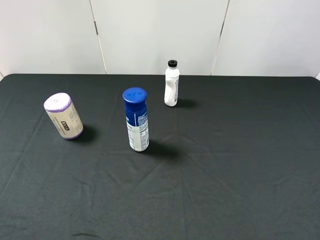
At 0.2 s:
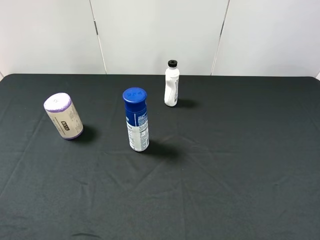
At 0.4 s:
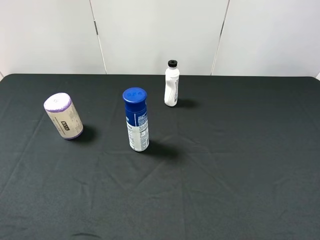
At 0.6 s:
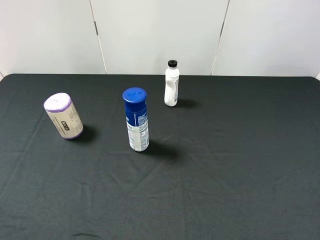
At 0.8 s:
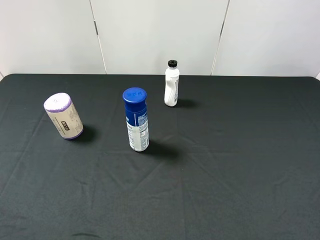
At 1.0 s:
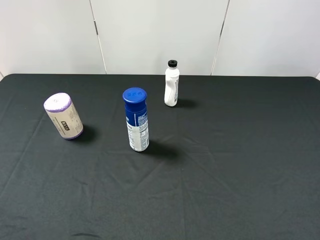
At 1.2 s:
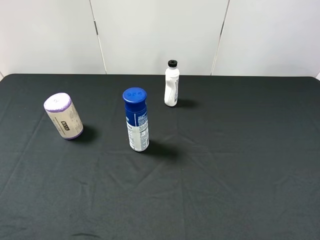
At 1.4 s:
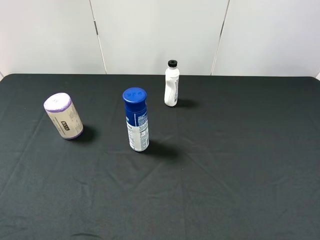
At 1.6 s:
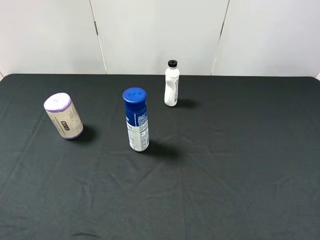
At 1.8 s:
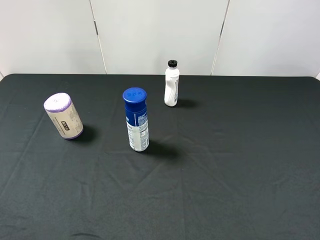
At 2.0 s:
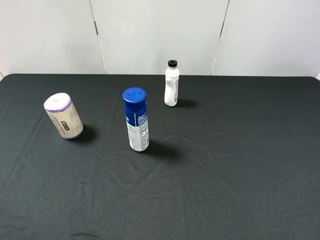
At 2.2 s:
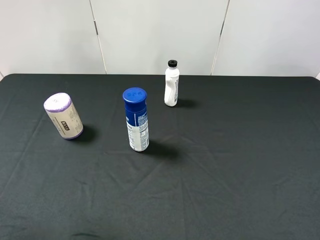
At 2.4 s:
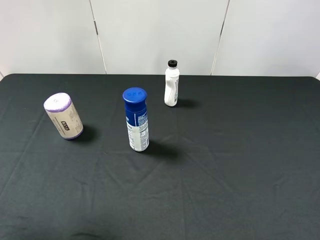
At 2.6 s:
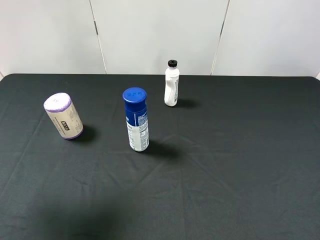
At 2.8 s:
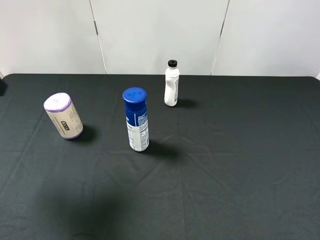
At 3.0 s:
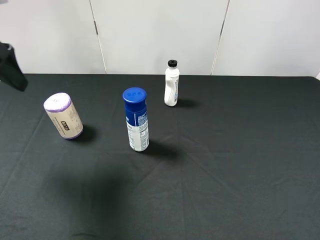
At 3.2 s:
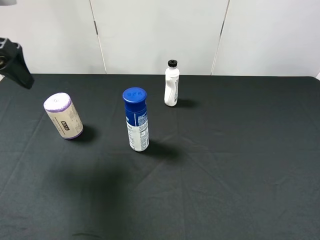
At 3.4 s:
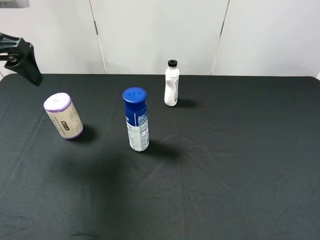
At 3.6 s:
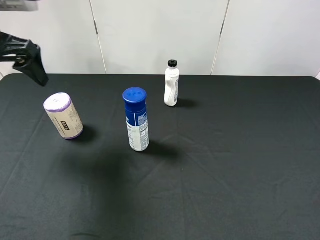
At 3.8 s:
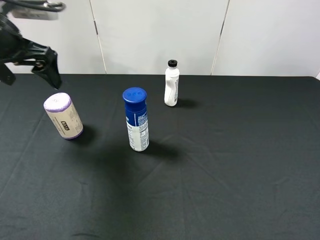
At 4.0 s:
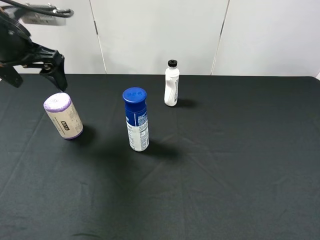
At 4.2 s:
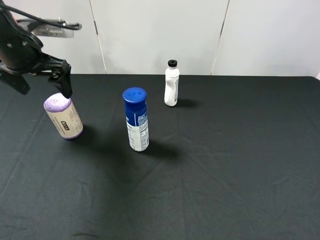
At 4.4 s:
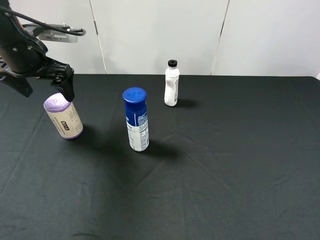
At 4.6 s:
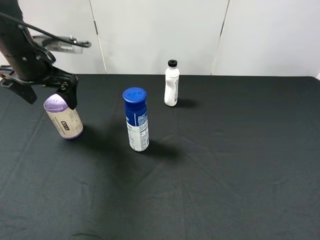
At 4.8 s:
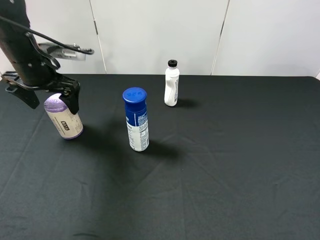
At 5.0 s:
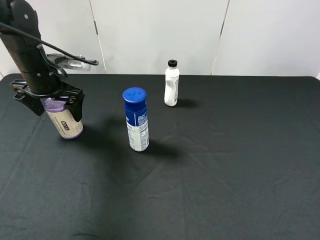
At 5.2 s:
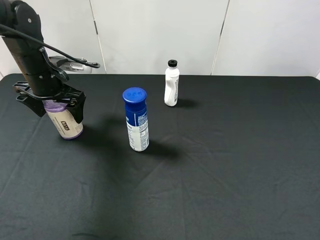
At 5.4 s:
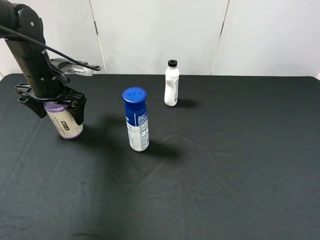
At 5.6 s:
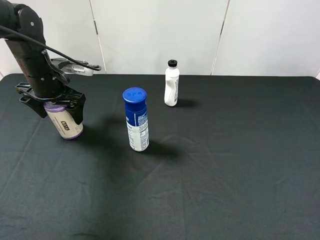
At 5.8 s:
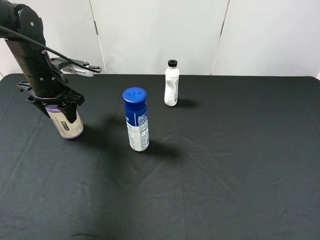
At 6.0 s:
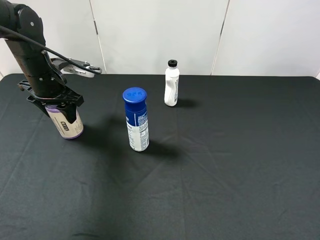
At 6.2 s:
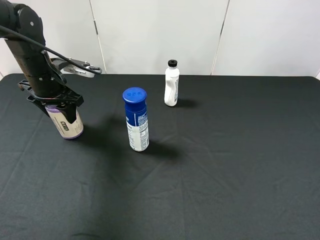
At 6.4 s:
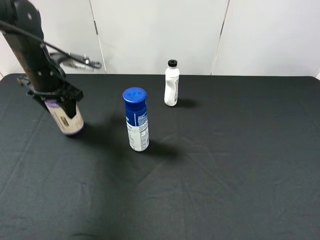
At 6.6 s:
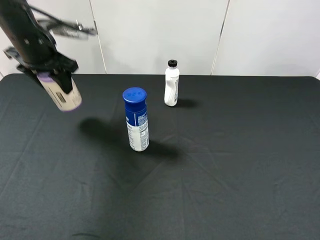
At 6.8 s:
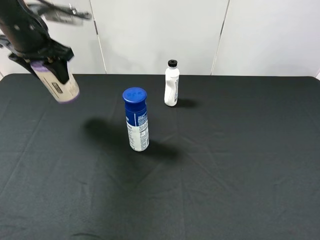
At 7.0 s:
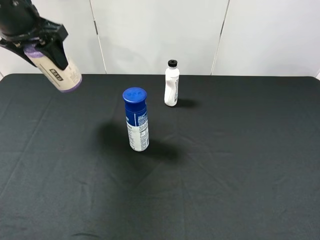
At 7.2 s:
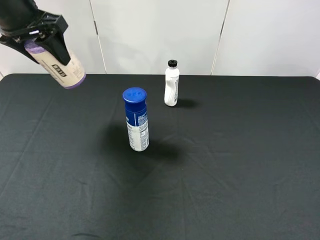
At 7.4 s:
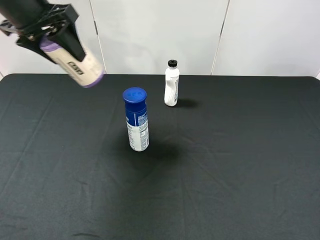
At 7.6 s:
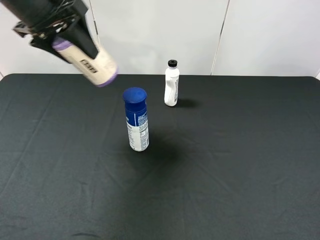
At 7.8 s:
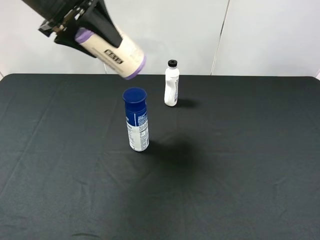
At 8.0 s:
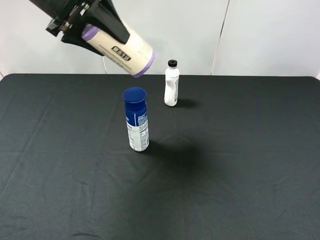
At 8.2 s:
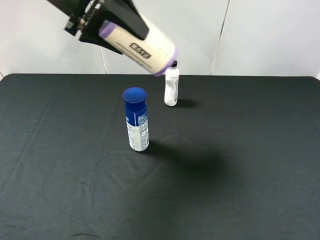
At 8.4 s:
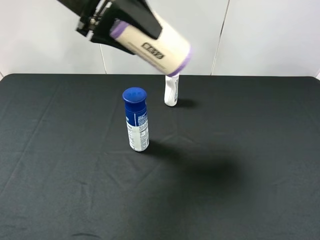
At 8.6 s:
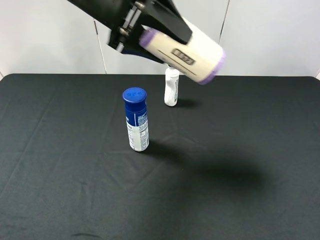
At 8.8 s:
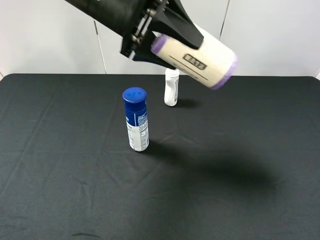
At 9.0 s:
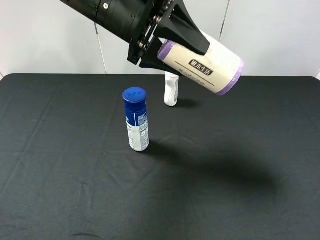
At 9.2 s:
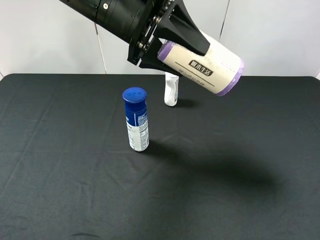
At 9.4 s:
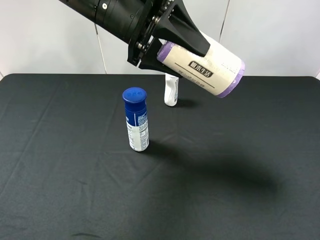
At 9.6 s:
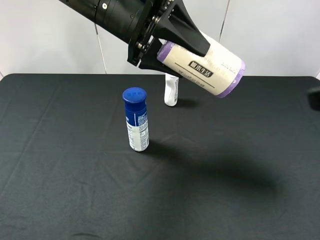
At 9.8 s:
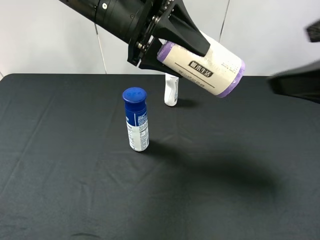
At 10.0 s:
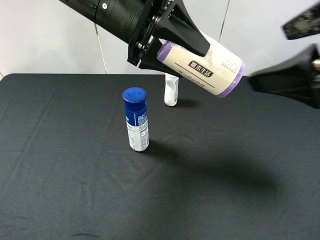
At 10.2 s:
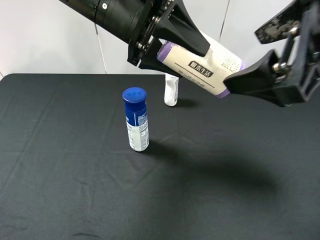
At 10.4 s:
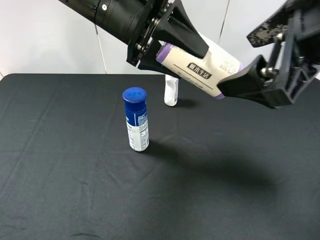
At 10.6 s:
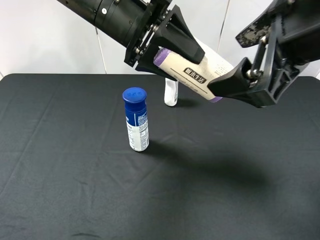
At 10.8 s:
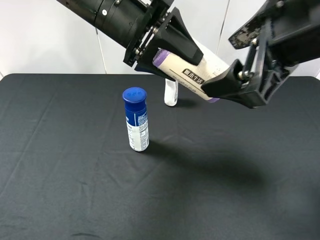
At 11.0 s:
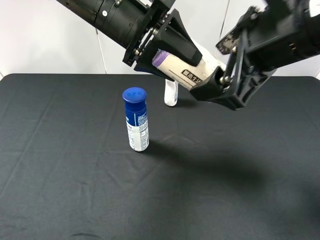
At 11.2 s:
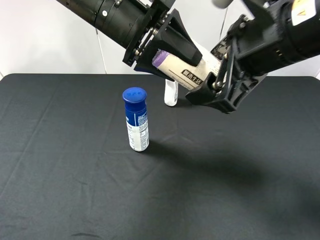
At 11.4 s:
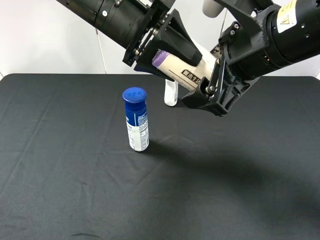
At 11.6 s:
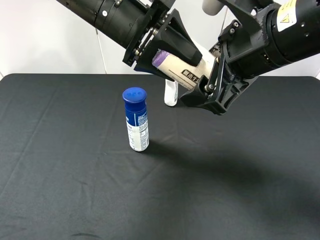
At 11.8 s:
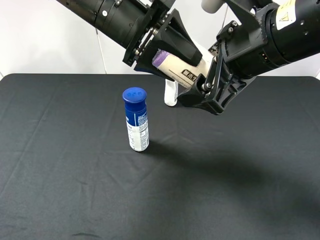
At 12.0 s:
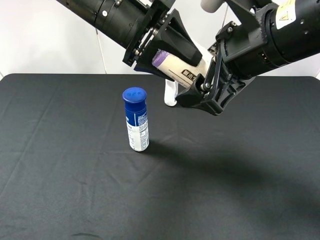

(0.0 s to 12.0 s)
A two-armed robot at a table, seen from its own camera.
Task of the whole recording: use the left gripper to pick up the item and transfer it from the left gripper to the right gripper.
1.6 s - 3.0 s: The left gripper travels forward by roughly 25 cm.
3.0 s - 4.4 s: The left gripper travels forward and downward by some 10 cm.
4.4 s - 6.0 s: The left gripper shifts some 10 cm downward, and closes.
6.0 s - 7.6 s: The left gripper goes approximately 15 cm upward.
7.6 s - 9.0 s: The left gripper moves to the right, some 15 cm. The right gripper ends up about 5 cm from where it was.
9.0 s - 10.4 s: The right gripper heads forward and to the left, covering roughly 15 cm.
10.4 s - 12.0 s: The right gripper moves approximately 5 cm.

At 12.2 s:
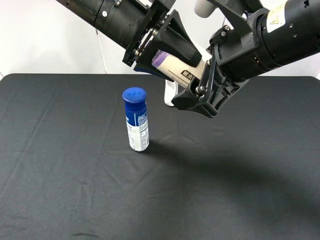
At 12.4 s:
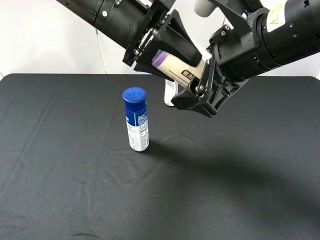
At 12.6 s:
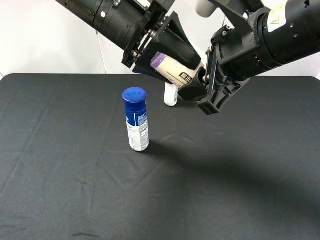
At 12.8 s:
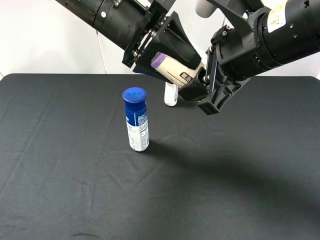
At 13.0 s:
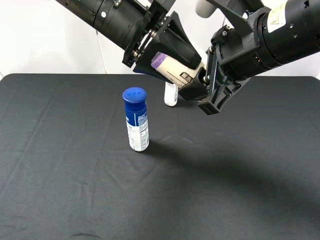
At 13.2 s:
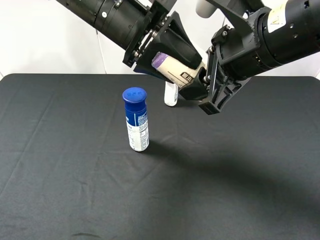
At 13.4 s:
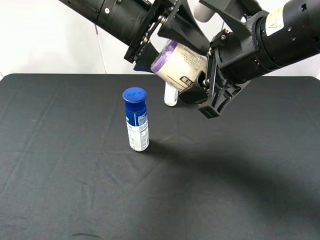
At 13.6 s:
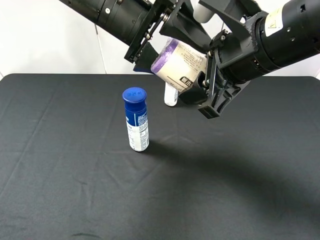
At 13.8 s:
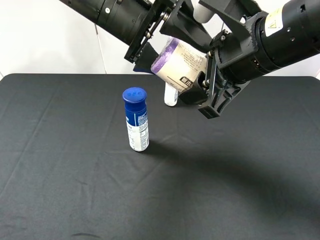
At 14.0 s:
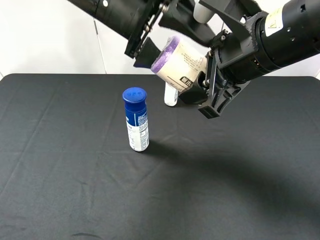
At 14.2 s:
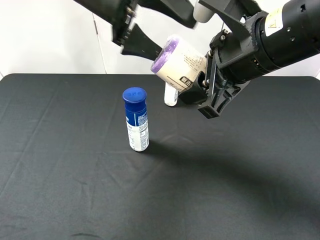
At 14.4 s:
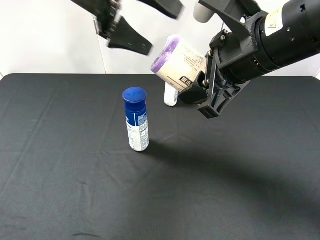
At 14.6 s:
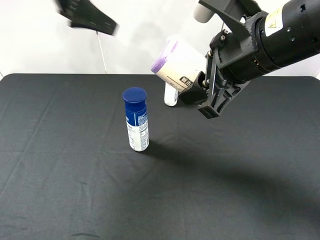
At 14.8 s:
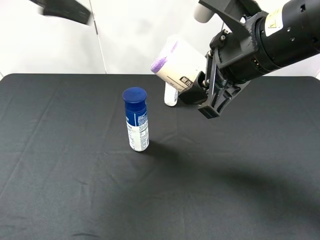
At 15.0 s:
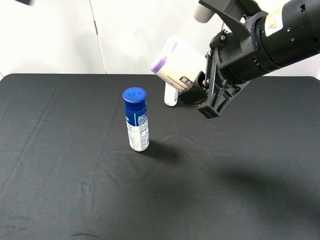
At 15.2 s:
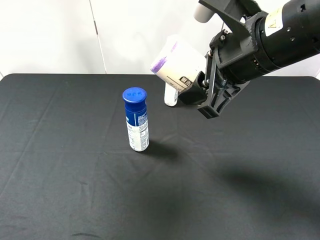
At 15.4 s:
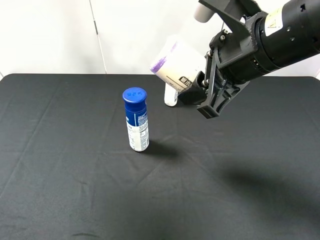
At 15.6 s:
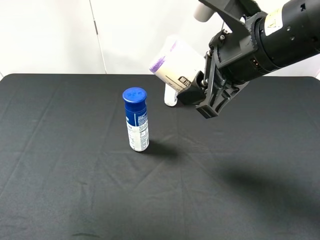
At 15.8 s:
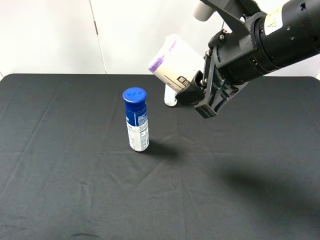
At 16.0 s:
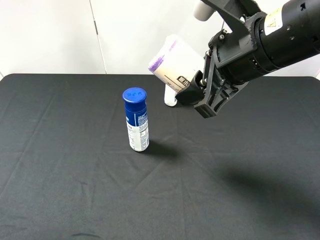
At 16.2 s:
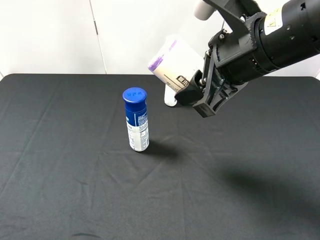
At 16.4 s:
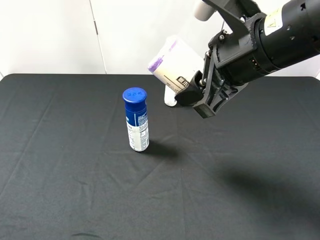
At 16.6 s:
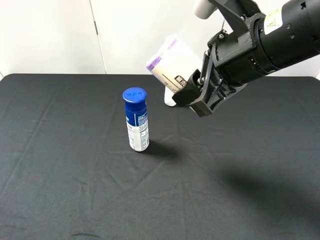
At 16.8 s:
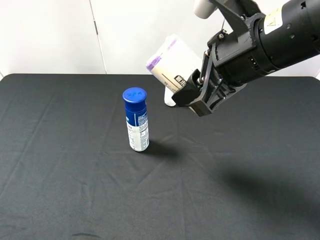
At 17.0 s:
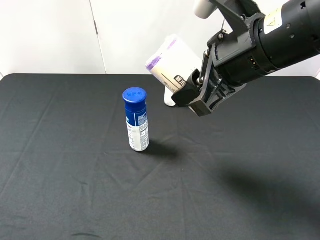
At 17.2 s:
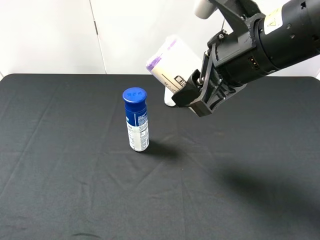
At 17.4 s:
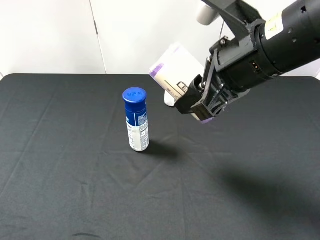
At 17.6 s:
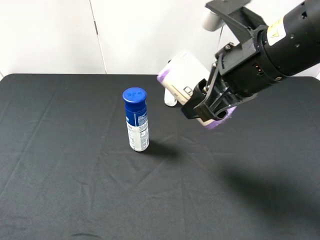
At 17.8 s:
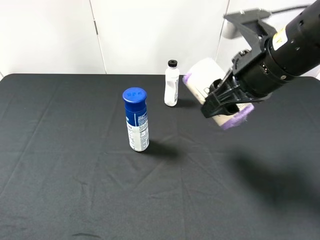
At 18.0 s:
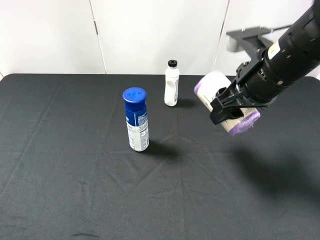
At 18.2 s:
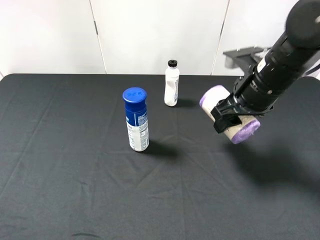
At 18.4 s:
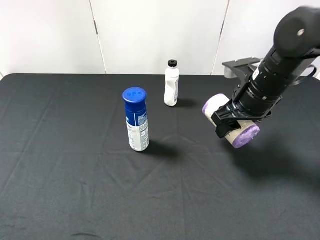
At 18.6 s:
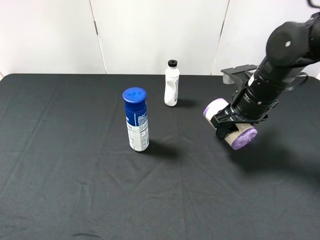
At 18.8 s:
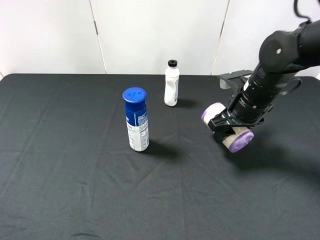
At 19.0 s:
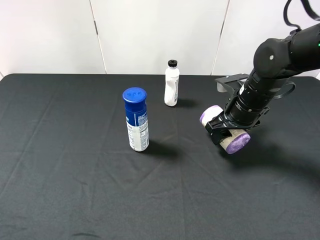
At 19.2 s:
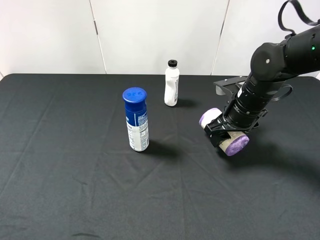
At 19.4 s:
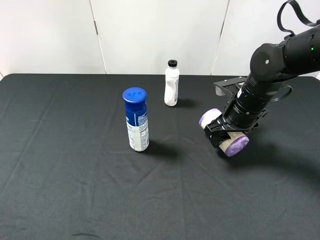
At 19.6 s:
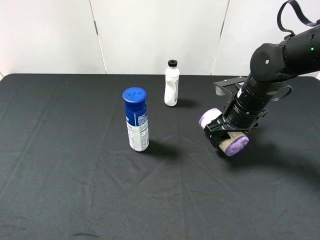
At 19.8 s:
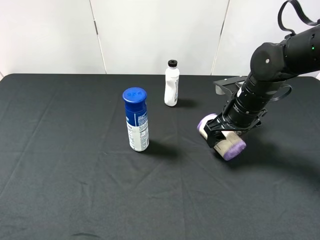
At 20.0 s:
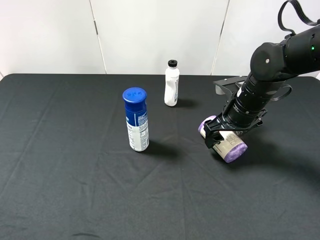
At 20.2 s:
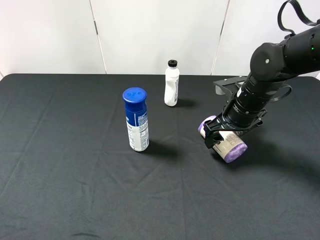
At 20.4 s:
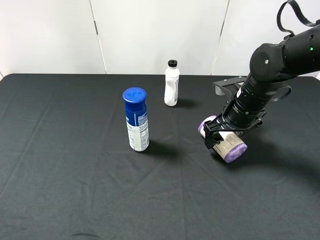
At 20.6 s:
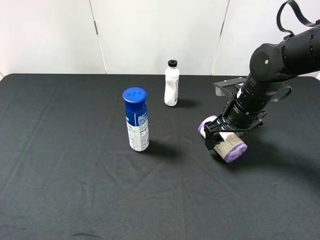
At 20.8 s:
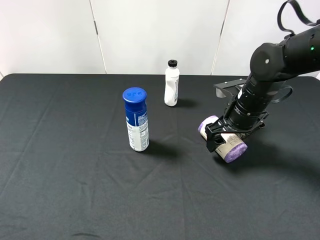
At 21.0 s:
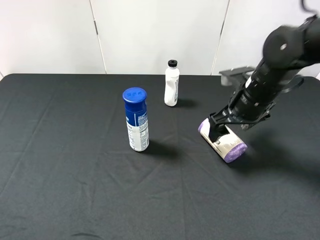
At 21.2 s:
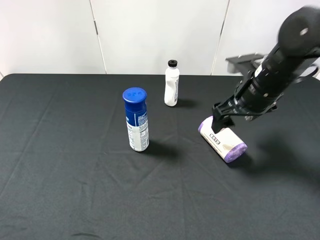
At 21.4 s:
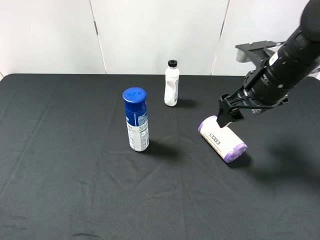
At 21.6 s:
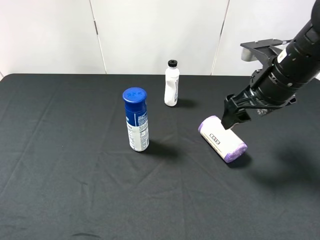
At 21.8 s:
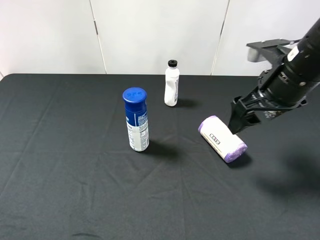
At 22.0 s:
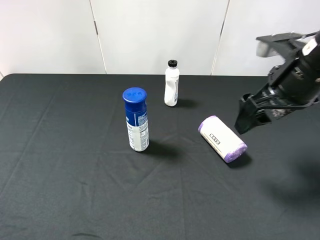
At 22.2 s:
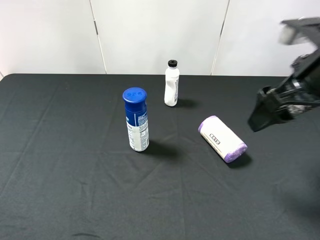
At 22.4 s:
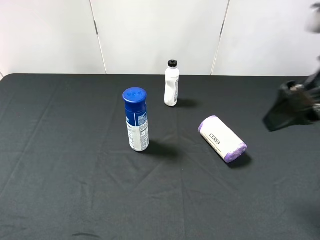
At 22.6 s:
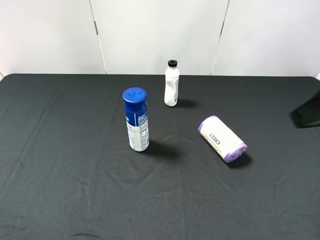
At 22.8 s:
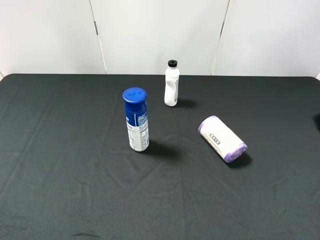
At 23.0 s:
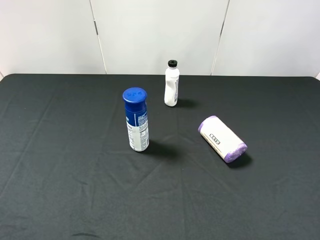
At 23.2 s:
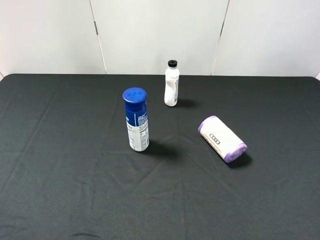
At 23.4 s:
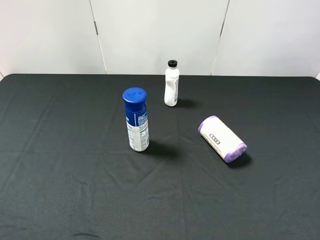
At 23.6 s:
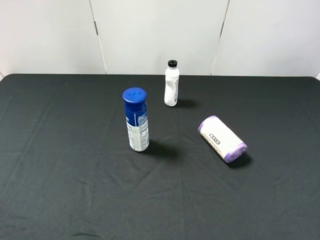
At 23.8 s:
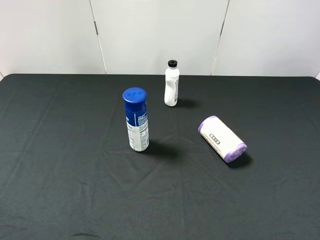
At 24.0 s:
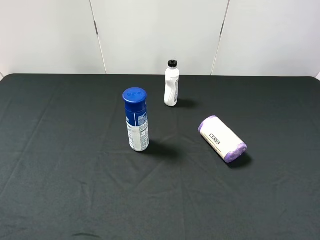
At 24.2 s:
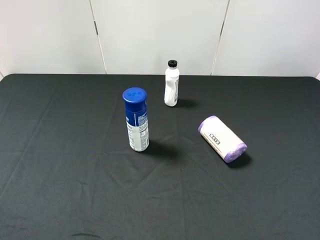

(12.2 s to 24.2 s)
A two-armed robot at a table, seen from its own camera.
Task of the whole recording: use the left gripper to pick up the item and transfer it from the left gripper to the right gripper.
12.2 s - 13.8 s: The right gripper closes up. The left gripper opens its fingers.
13.8 s - 15.2 s: The left gripper shifts roughly 25 cm to the left and upward.
15.2 s - 16.6 s: The left gripper heads backward and downward, covering approximately 30 cm.
16.6 s - 18.2 s: The right gripper is displaced downward, forward and to the right by approximately 15 cm.
18.2 s - 19.8 s: The right gripper moves downward, about 5 cm, and opens up.
19.8 s - 21.2 s: The right gripper travels upward by roughly 5 cm.
21.2 s - 22.6 s: The right gripper moves backward and upward, some 20 cm.
22.6 s - 24.2 s: The right gripper heads backward, downward and to the right, covering approximately 15 cm.
